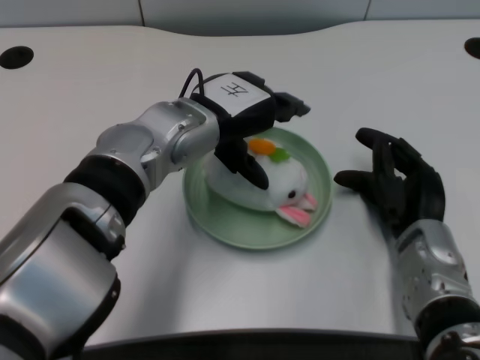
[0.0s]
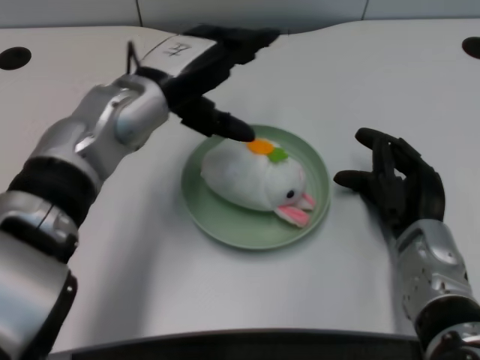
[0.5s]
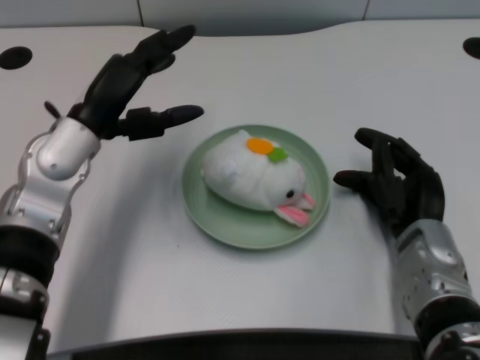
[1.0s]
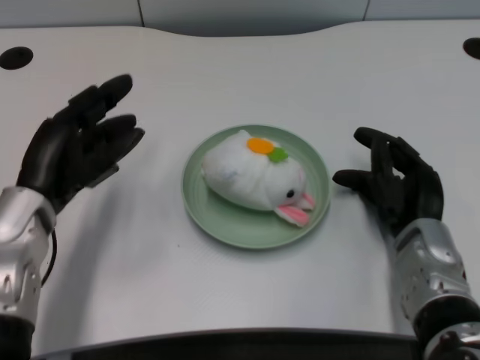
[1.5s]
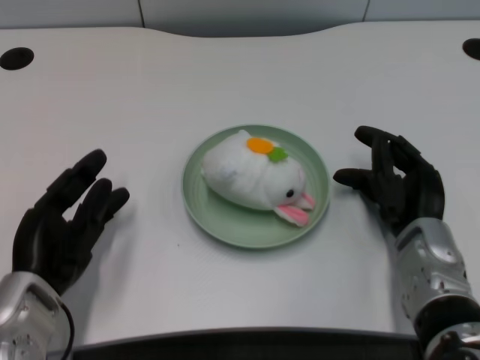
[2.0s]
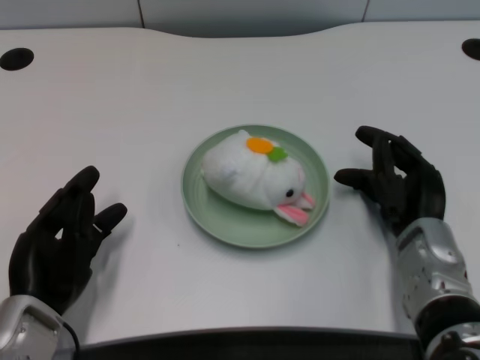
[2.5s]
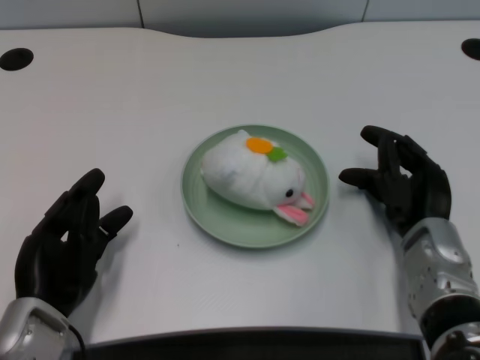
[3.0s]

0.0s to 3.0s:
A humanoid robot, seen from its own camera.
Task of the whole recording: pick up the rabbit doll from the table and place it on the plate.
0.0s to 1.5s: The left hand shifts approximately 15 cm to the left and backward.
1.5s to 3.0s: The left hand shifts some 10 cm backward and downward.
